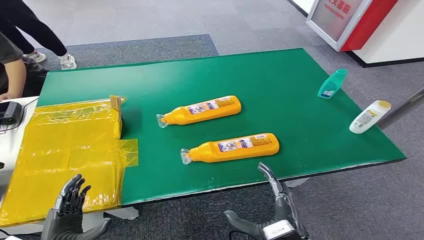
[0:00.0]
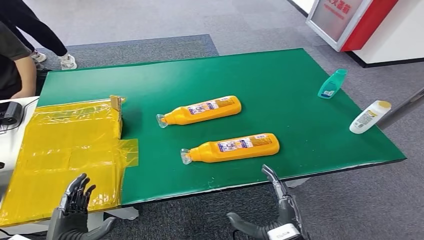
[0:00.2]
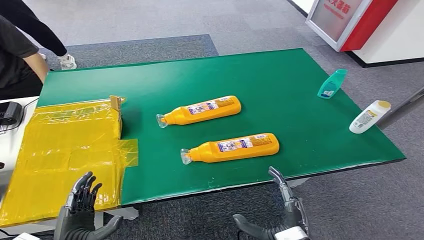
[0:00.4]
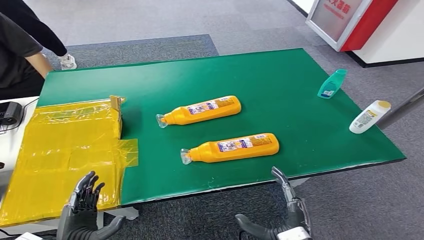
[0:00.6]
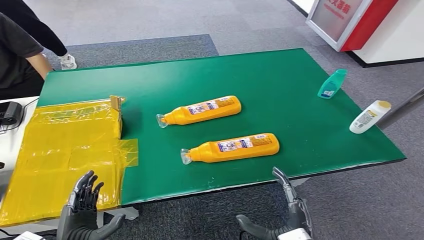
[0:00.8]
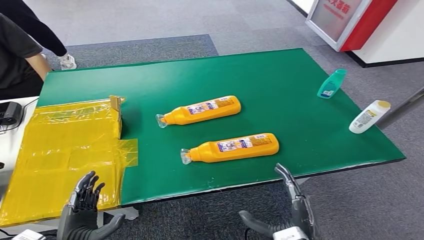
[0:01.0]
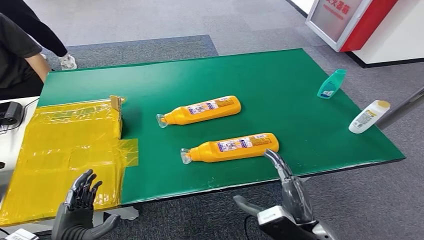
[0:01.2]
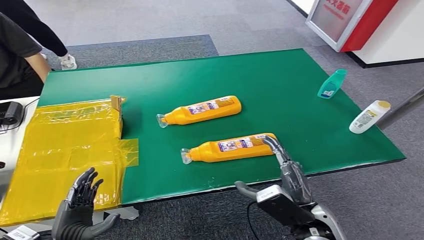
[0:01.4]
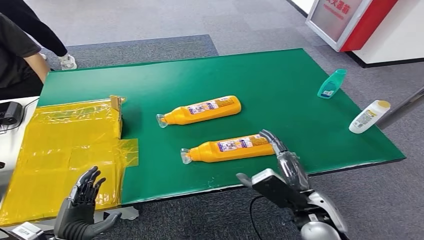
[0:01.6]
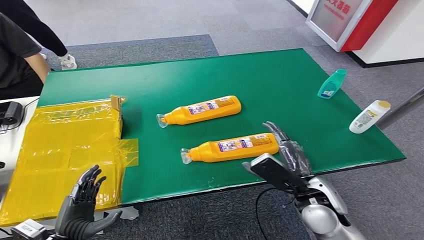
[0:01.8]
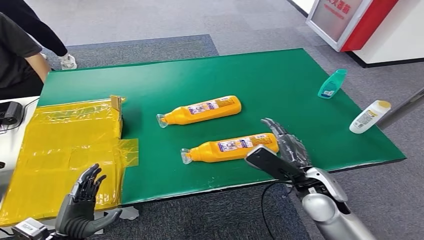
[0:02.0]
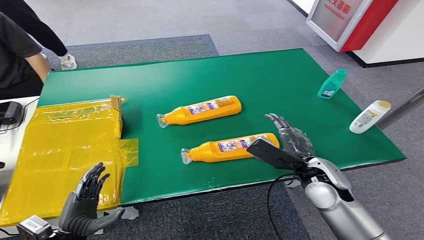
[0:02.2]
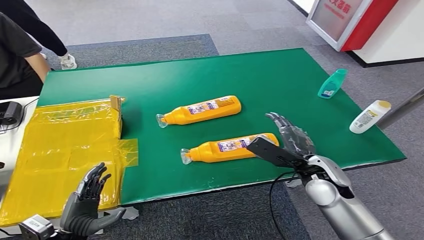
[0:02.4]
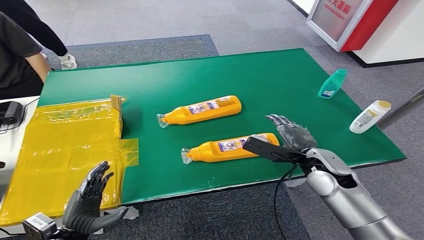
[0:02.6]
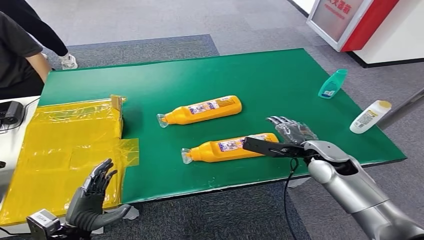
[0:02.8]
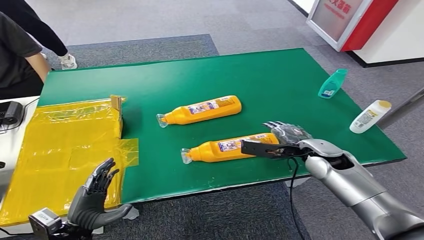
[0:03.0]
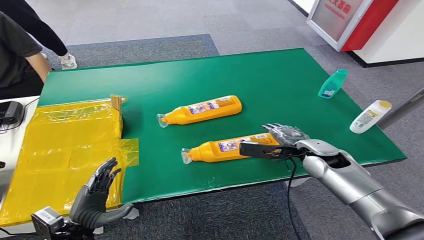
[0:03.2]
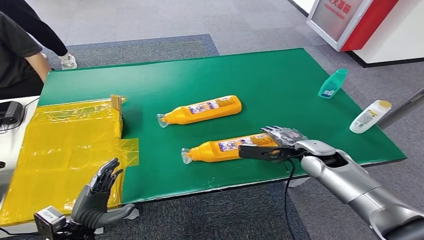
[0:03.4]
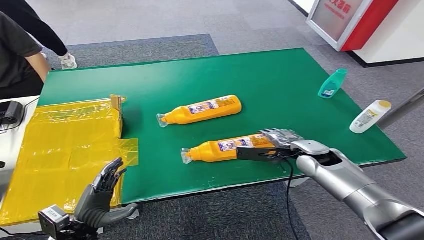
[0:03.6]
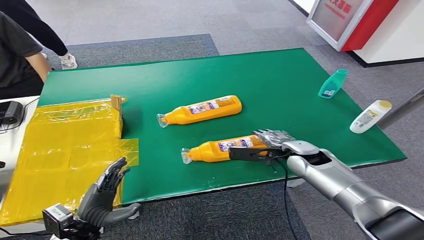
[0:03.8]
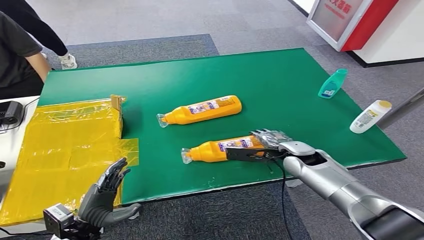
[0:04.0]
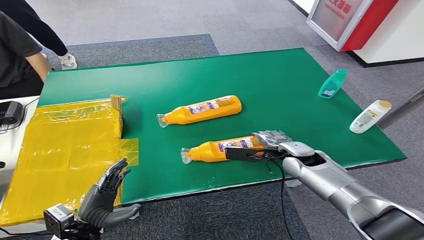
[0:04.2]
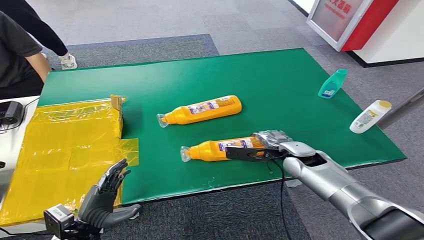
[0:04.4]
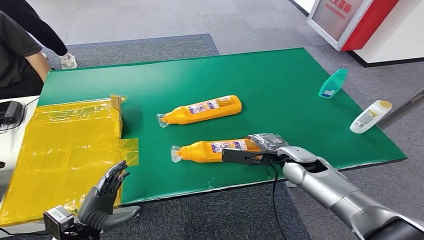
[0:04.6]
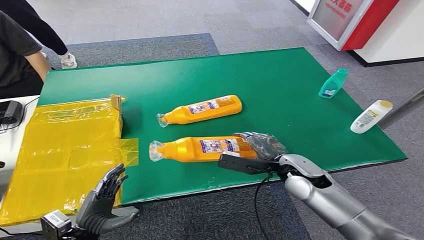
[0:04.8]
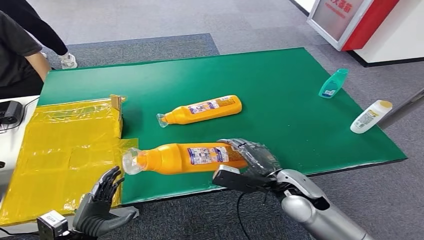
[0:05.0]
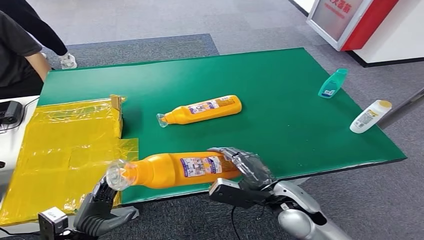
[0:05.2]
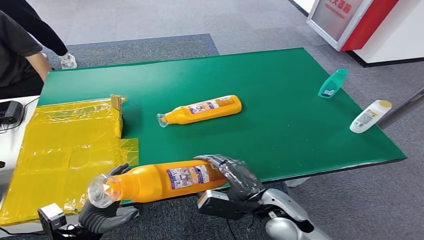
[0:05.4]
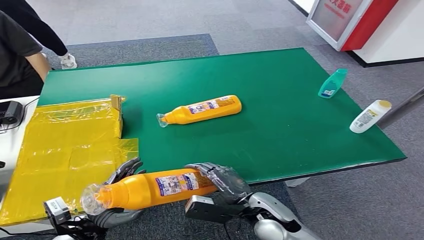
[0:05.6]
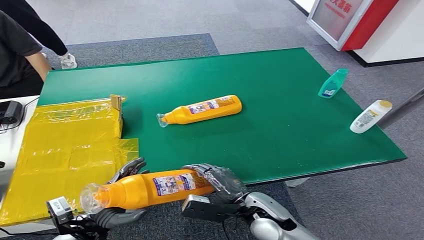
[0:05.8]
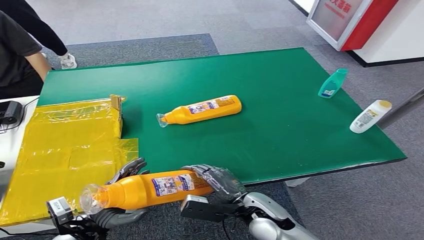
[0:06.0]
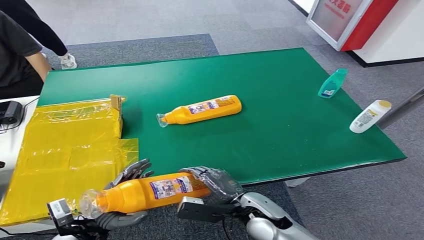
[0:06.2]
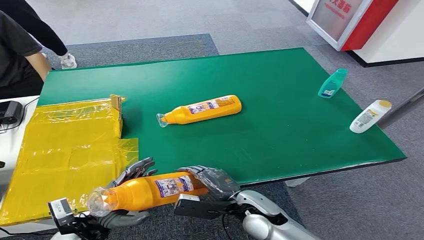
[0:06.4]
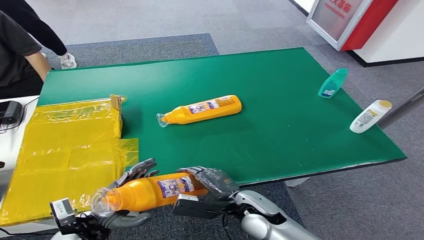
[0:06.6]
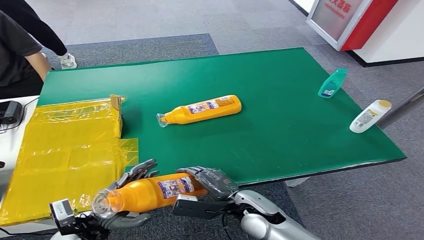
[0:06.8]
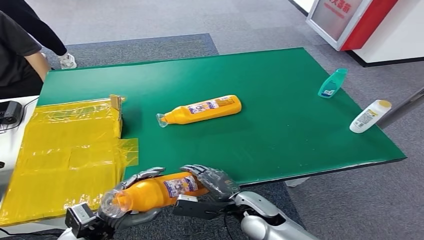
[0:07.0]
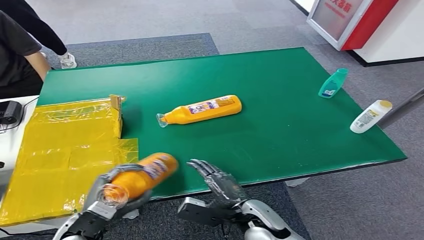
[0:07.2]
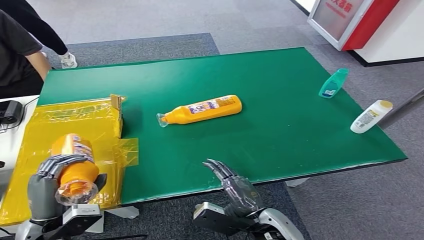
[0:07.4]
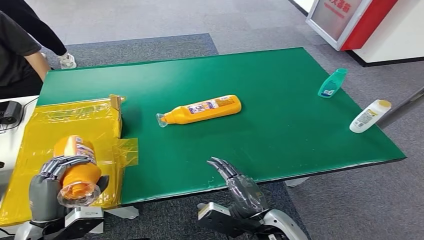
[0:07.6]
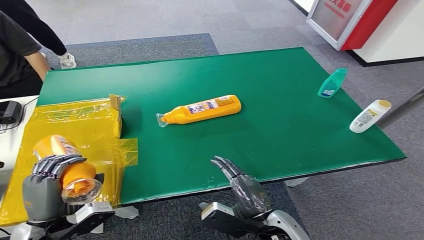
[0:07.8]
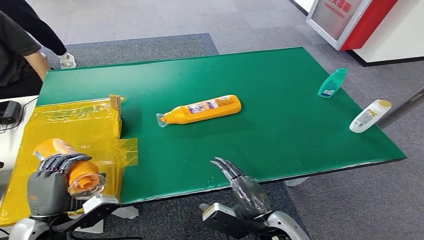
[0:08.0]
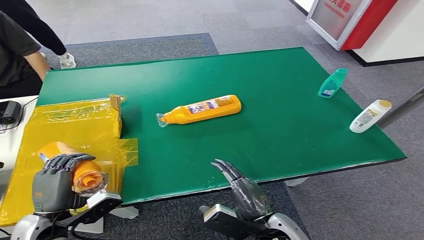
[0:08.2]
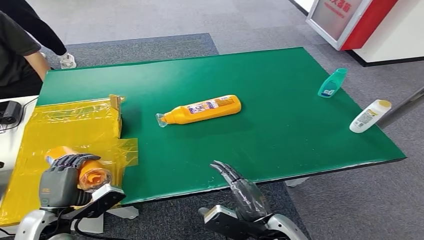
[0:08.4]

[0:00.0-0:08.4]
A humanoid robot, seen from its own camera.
Step, 0:00.0 to 0:05.0: Pick up the bottle from the table.
Step, 0:05.2 to 0:08.4: Turn the bottle to the front side.
0:01.4 to 0:02.8: The right hand goes approximately 20 cm forward and to the right.
0:02.8 to 0:04.2: The right hand shifts by some 5 cm.
0:04.2 to 0:05.6: The right hand shifts approximately 20 cm backward and to the left.
0:05.6 to 0:07.0: There are only small adjustments of the hands.
0:07.0 to 0:08.4: The left hand heads to the left and upward, covering roughly 5 cm, while the right hand heads backward, covering some 5 cm.
